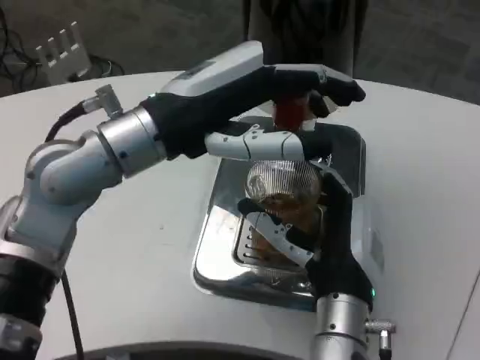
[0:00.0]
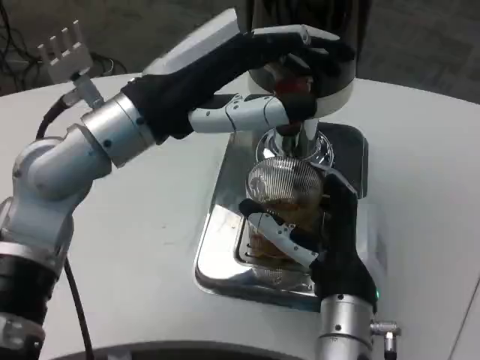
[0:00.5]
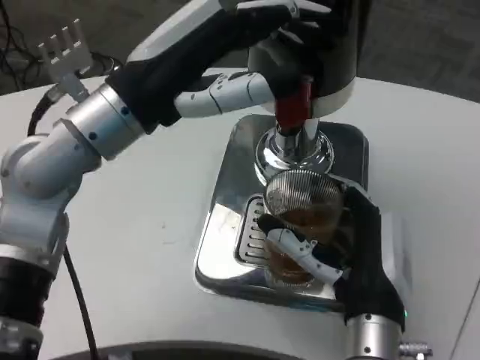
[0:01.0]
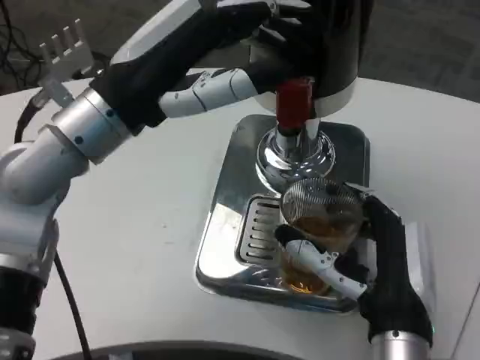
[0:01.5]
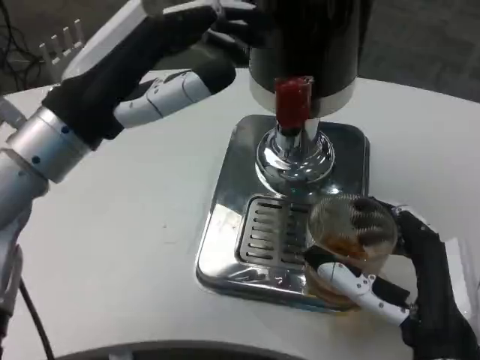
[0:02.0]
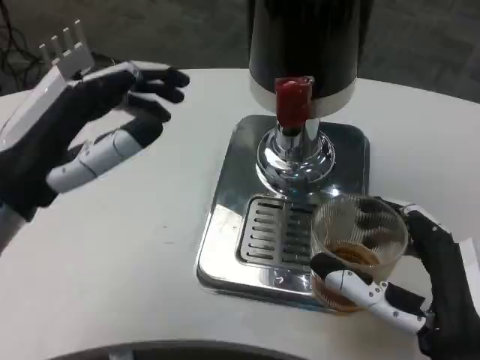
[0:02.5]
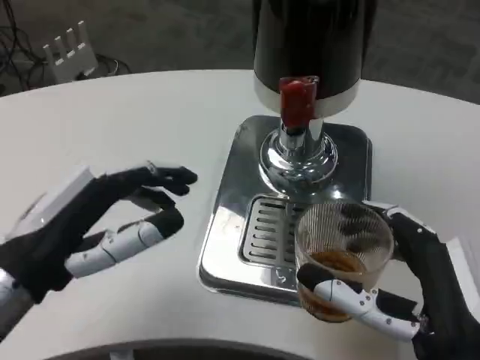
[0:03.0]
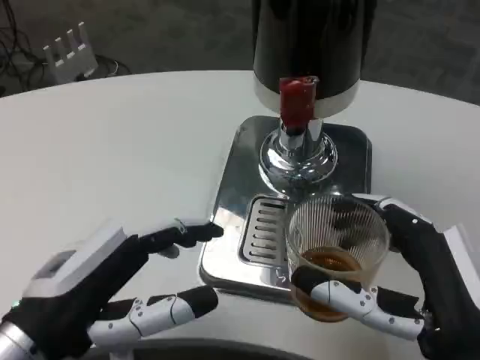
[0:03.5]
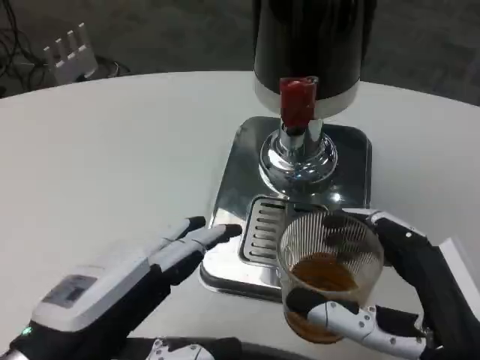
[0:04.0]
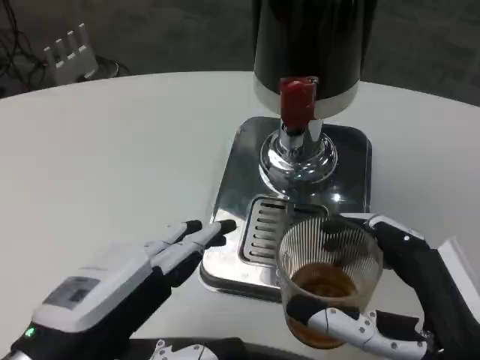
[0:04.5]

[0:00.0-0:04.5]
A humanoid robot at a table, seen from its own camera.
Task of the whole recording: Grasp the cup under the faucet to collect the drink, then remove the cup.
0:00.0 to 0:02.0: The left hand travels to the left by roughly 5 cm; the right hand heads to the right and backward, covering roughly 10 cm.
0:02.0 to 0:04.5: The left hand goes approximately 15 cm backward and downward. Meanwhile the right hand moves some 5 cm.

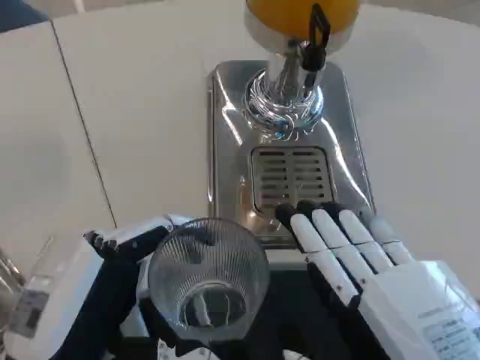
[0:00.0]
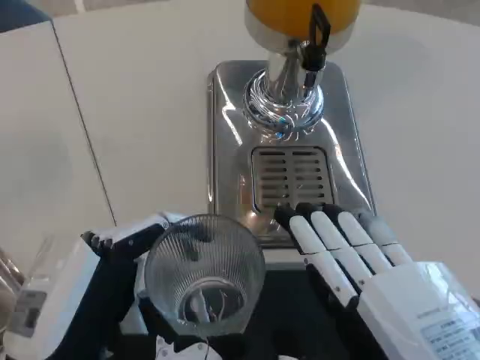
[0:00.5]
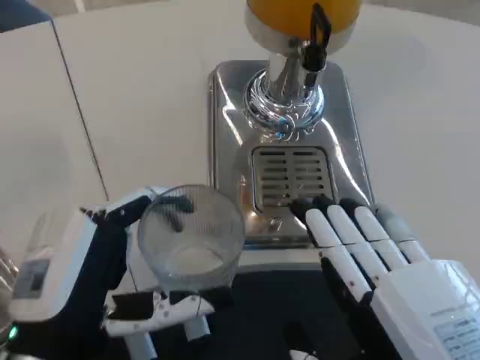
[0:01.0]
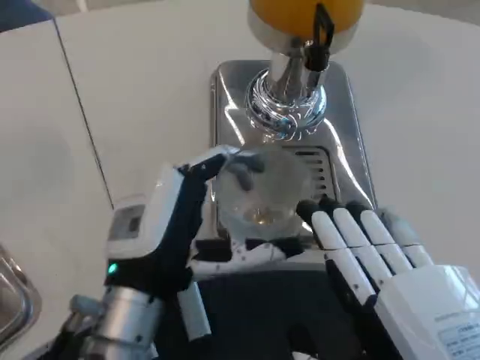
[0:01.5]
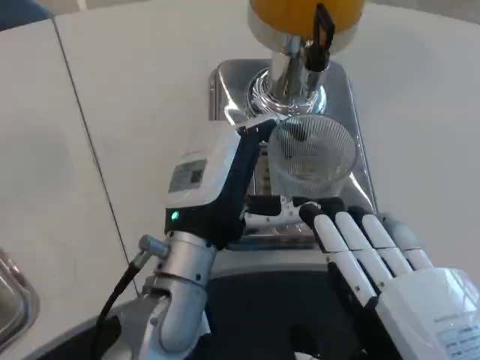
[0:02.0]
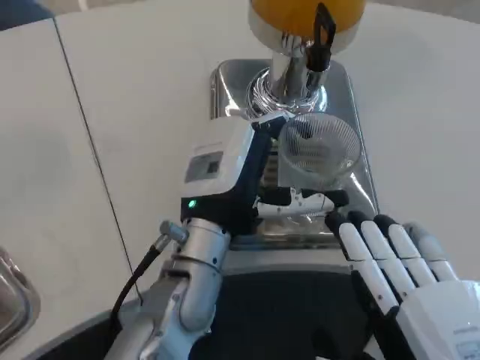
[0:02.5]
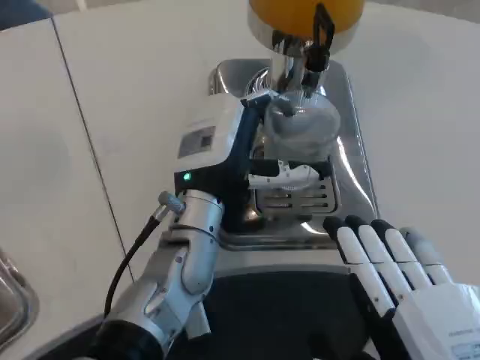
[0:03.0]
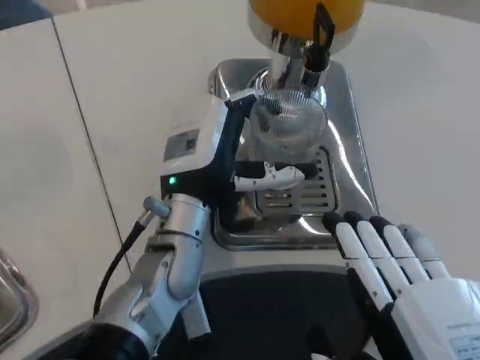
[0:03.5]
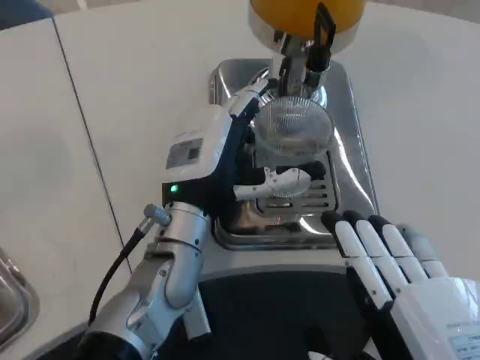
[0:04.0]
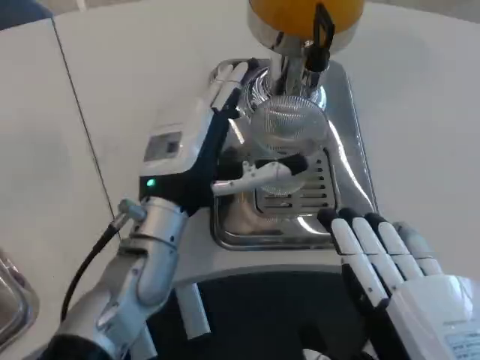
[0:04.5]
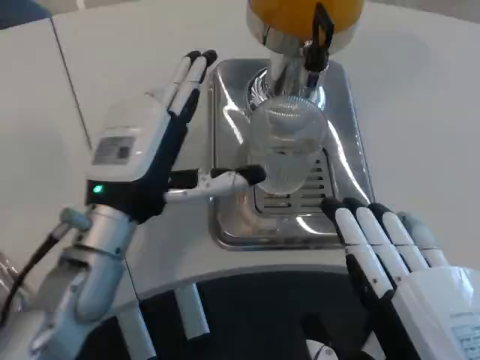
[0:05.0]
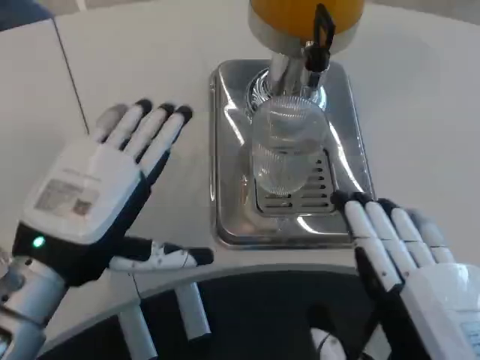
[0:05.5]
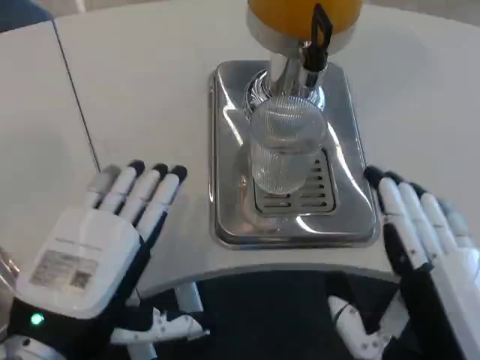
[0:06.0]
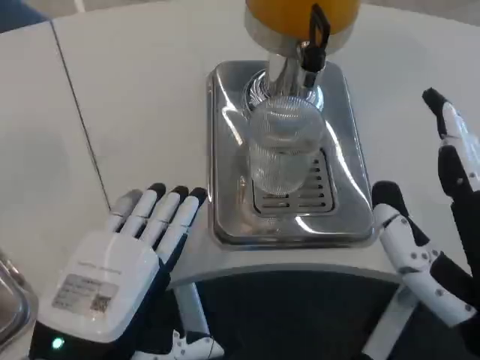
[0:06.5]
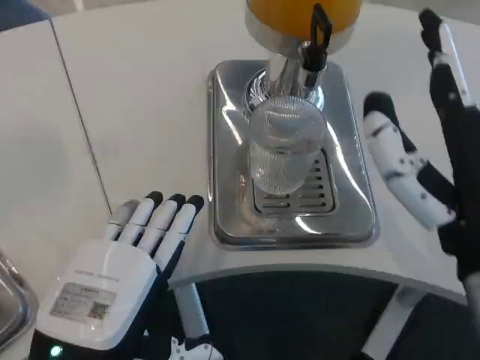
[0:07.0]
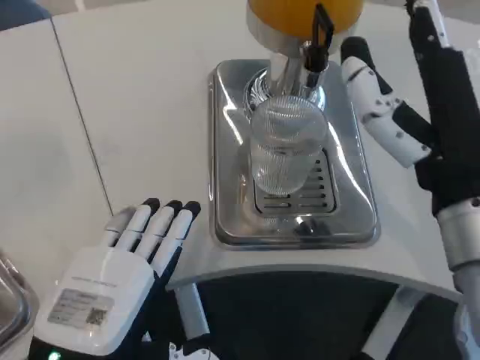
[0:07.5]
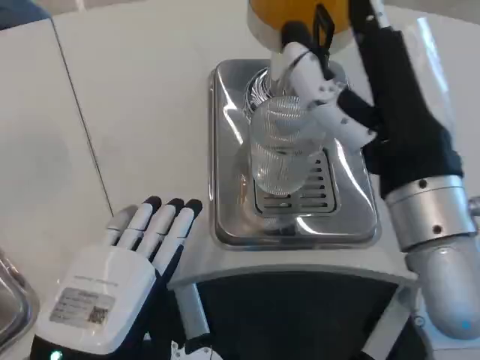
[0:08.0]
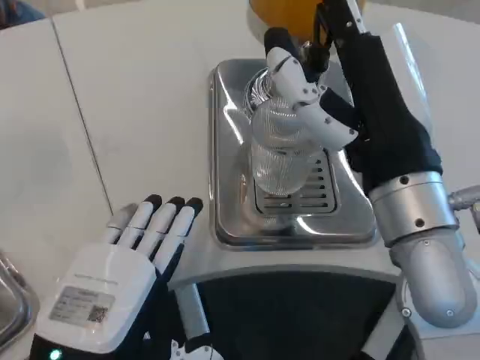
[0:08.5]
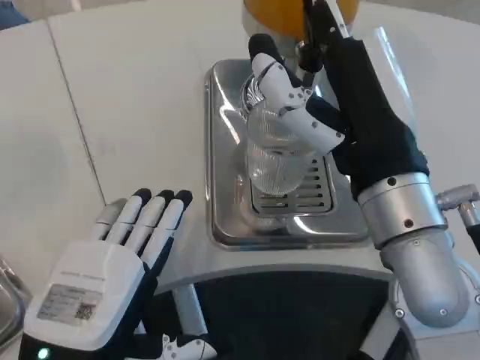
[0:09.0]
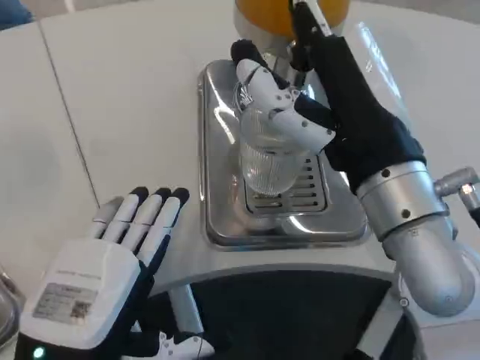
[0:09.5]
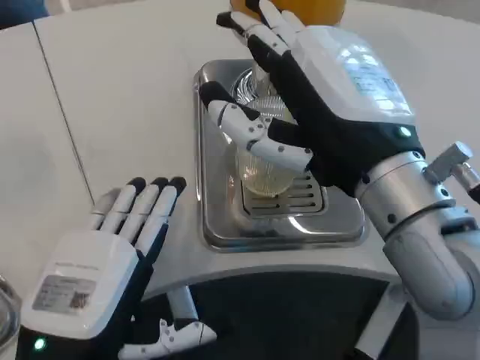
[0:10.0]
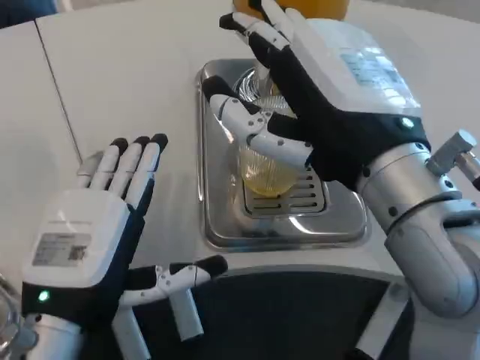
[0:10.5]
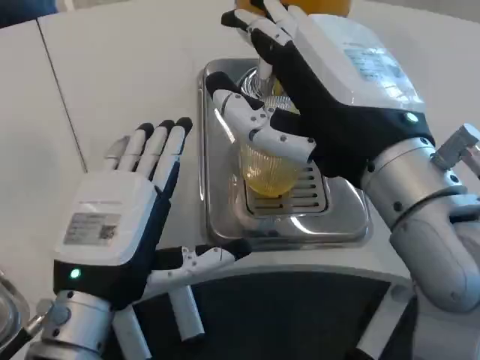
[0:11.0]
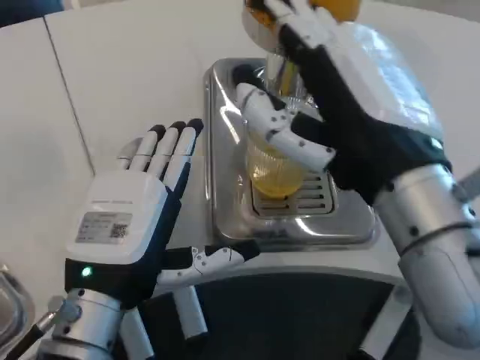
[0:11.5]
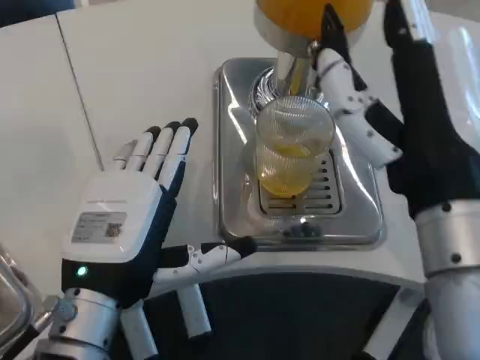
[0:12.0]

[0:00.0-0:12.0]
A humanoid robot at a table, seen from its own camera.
Task of the whole recording: Grasp the cup under the faucet to collect the drink, then remove the cup.
0:00.0 to 0:02.0: The left hand heads forward and to the right, covering about 20 cm.
0:02.0 to 0:04.0: The hands stay close to where they were, moving slightly.
0:04.0 to 0:06.0: The left hand heads backward and to the left, covering roughly 20 cm.
0:06.0 to 0:08.0: The right hand is displaced forward and upward by roughly 15 cm.
0:10.0 to 0:12.0: The left hand goes about 5 cm forward.

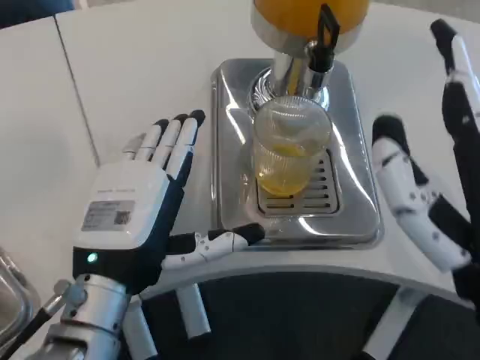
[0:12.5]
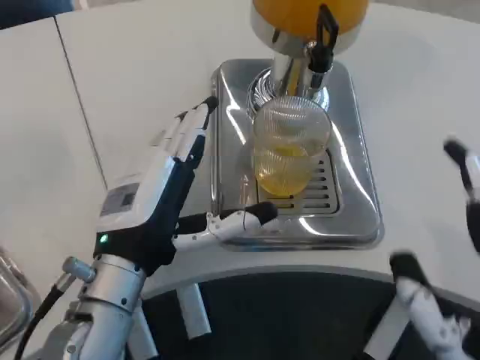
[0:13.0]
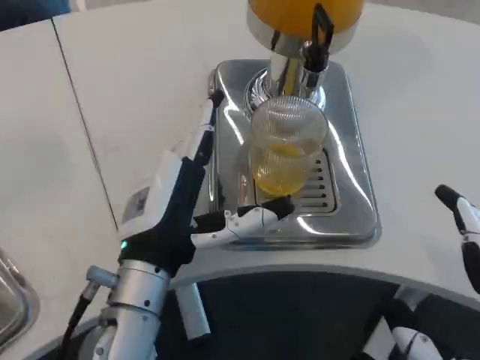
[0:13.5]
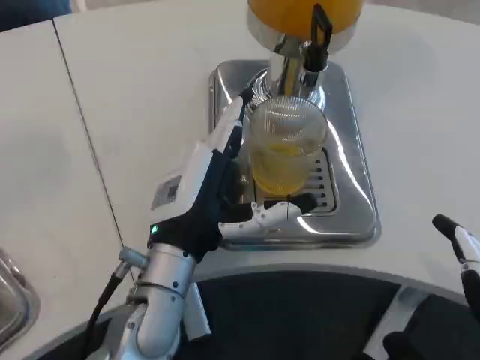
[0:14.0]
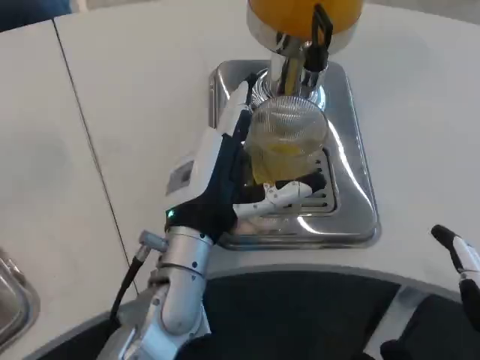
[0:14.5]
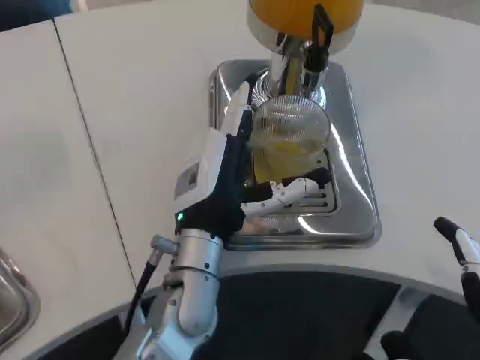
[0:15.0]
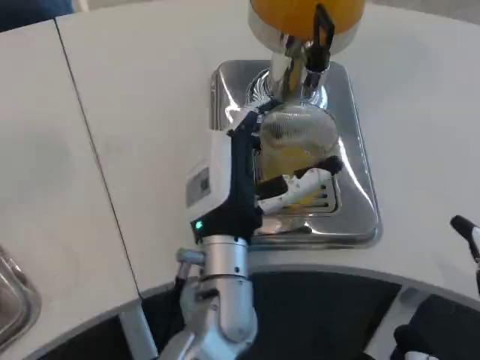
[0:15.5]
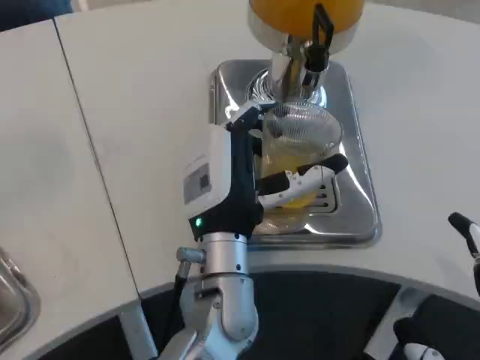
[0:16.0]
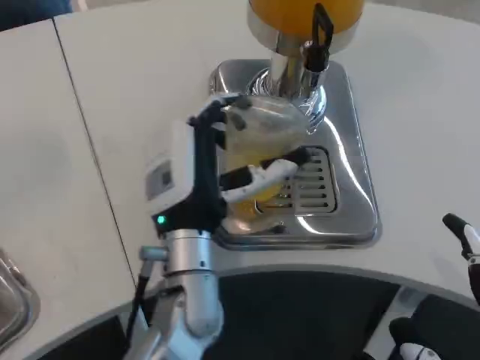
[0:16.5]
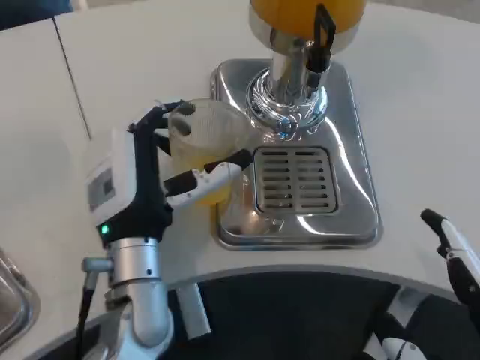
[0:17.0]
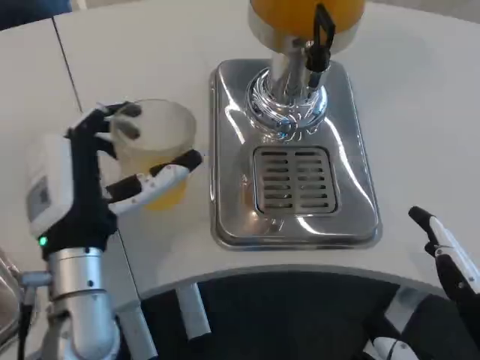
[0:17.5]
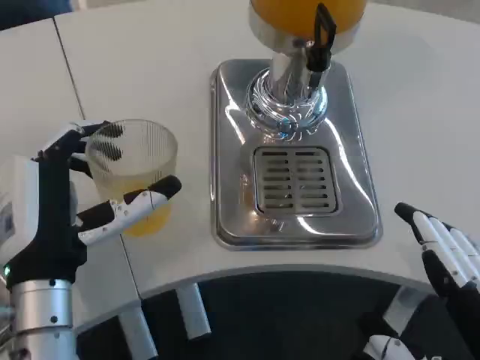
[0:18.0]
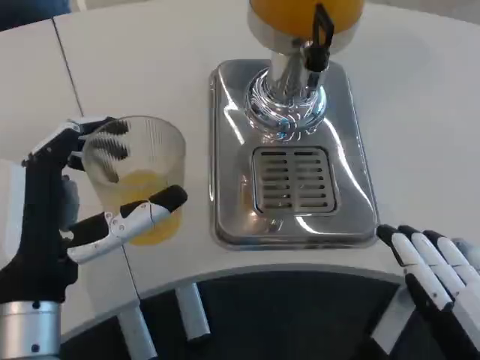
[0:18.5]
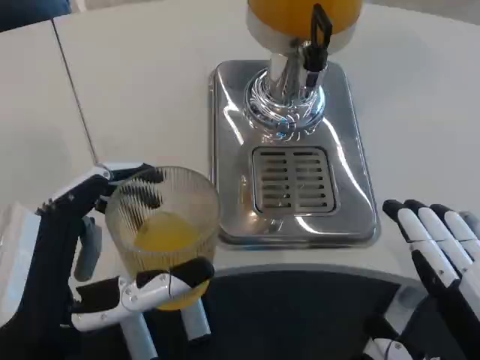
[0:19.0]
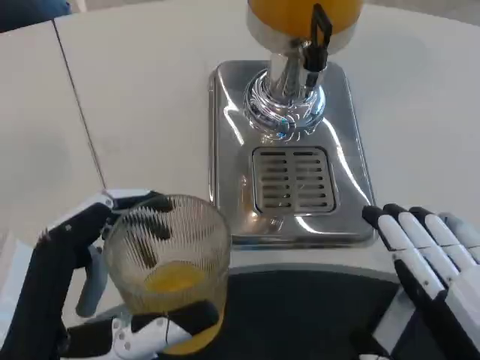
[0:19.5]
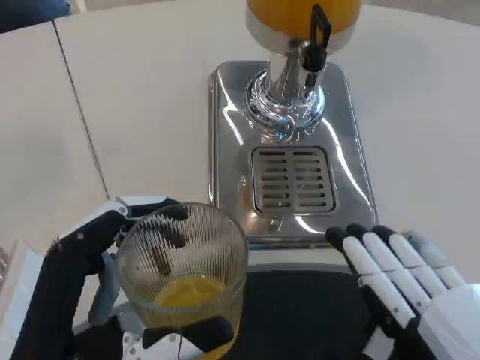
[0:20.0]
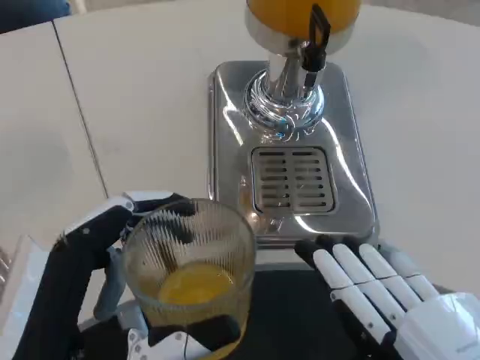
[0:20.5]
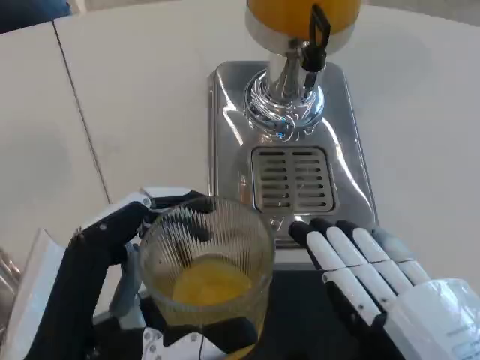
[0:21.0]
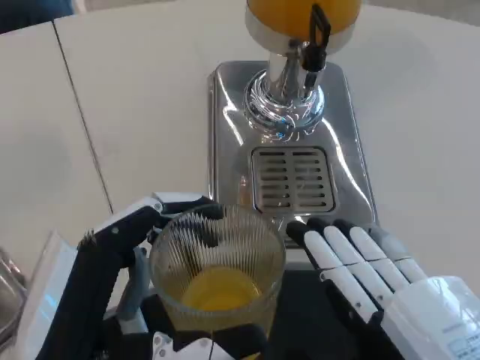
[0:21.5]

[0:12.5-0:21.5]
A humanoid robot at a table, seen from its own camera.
Task of the whole recording: Grasp the cup under the faucet to collect the drink, then remove the cup.
0:12.5 to 0:14.5: The right hand is displaced backward by approximately 10 cm, while the left hand travels forward and to the right by roughly 10 cm.
0:14.5 to 0:17.0: The left hand travels to the right and back again, roughly 5 cm each way.
0:17.0 to 0:19.5: The left hand travels backward by roughly 15 cm.
